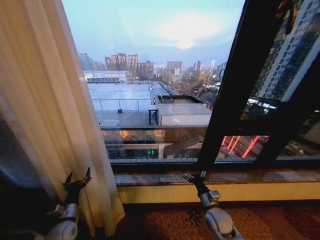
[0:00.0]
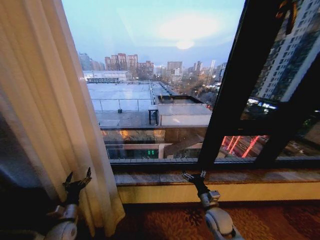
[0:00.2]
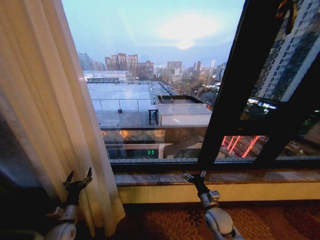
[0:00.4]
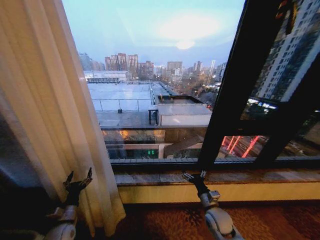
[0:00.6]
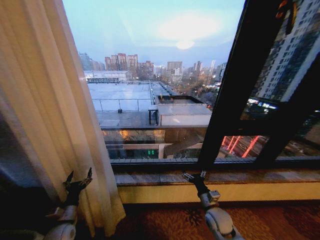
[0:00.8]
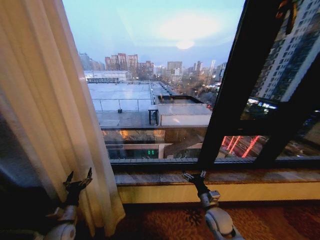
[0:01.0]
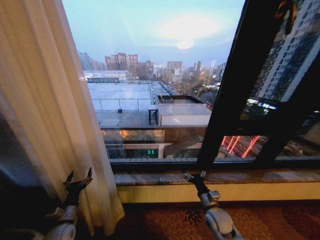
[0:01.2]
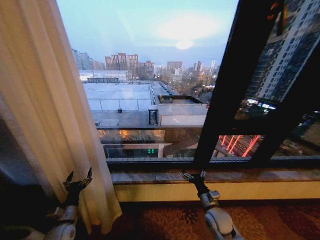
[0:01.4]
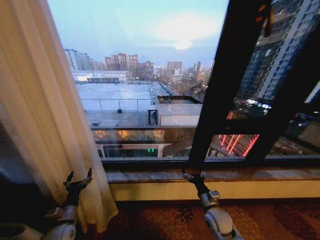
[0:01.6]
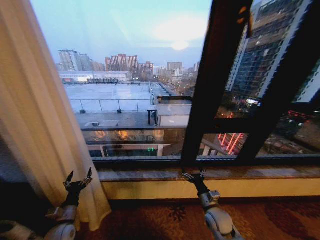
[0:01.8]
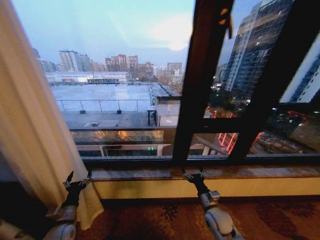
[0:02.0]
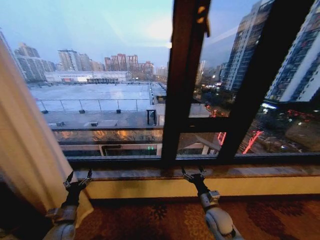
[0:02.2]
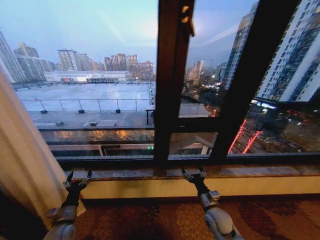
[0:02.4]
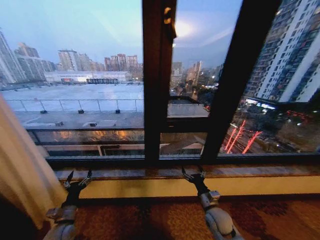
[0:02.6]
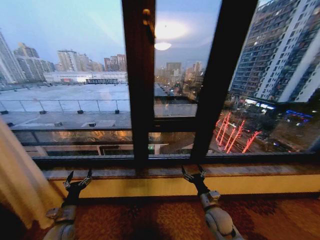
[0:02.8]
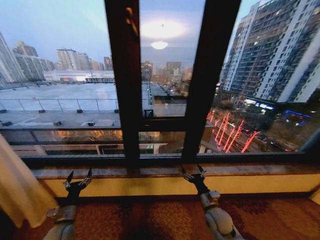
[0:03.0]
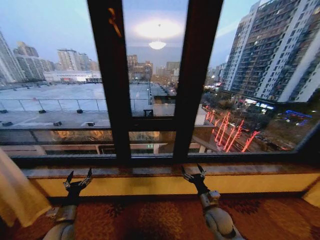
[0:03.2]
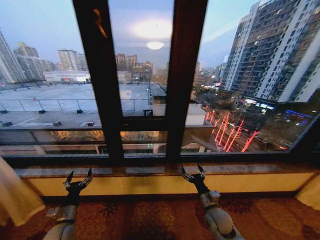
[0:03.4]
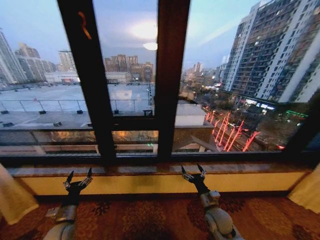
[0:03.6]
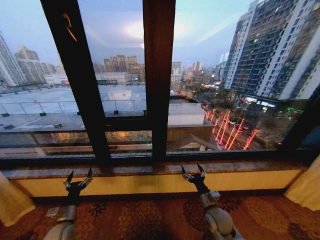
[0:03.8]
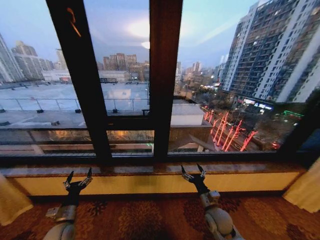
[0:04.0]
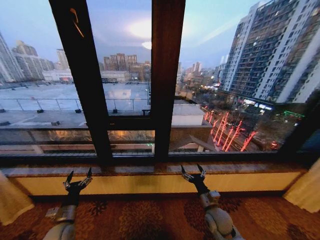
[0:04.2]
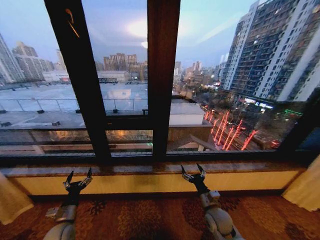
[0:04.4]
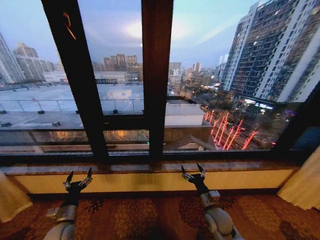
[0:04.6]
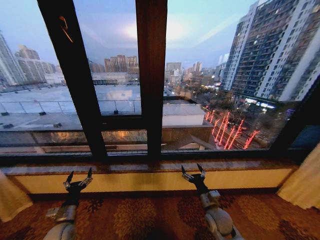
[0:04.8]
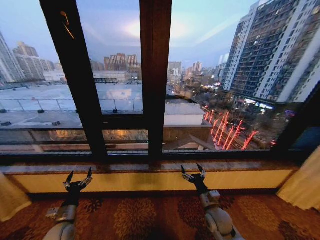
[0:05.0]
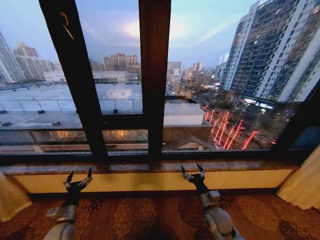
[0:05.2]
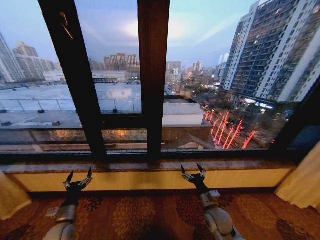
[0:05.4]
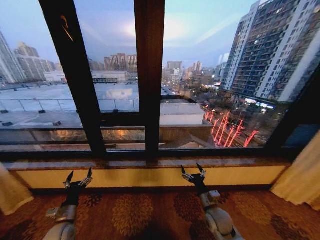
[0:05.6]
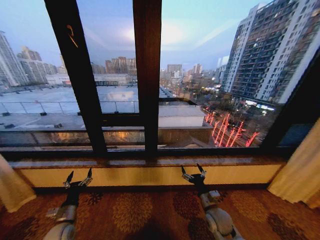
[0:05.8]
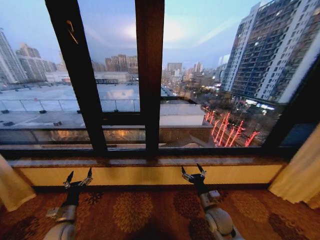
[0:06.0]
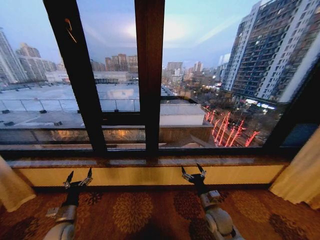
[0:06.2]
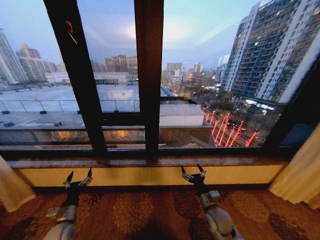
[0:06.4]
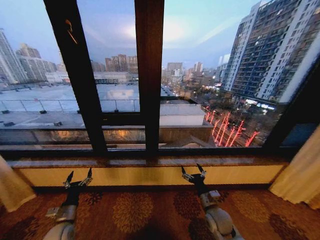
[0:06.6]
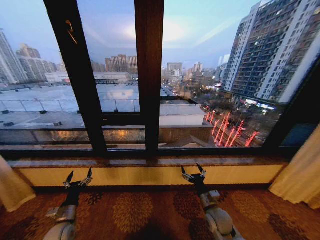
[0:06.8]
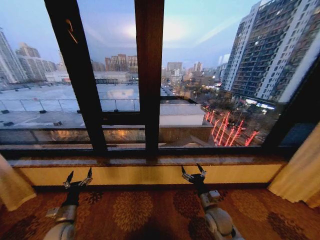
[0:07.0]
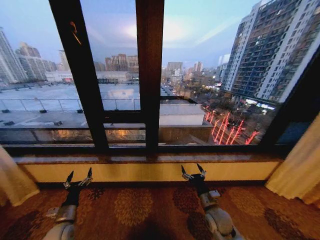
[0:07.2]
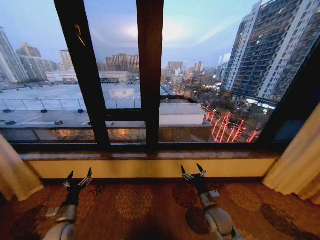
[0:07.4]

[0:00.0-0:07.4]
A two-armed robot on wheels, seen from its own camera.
Task of the whole recording: Open the curtains by pulling them apart, changing their state from closed to fully open.
0:00.0 to 0:01.4: There are only small adjustments of the grippers.
